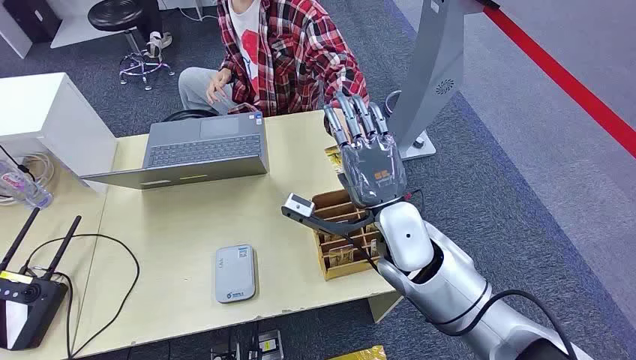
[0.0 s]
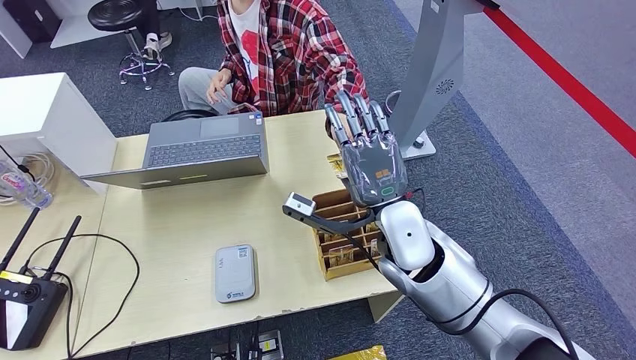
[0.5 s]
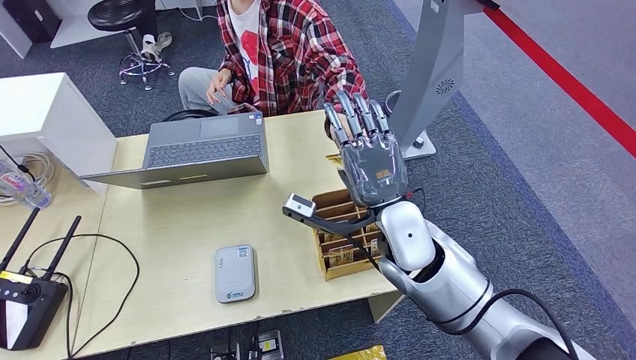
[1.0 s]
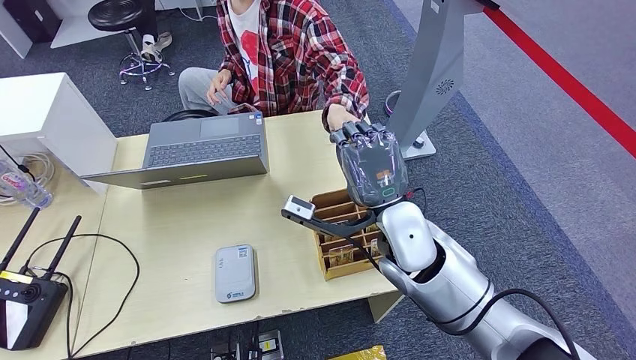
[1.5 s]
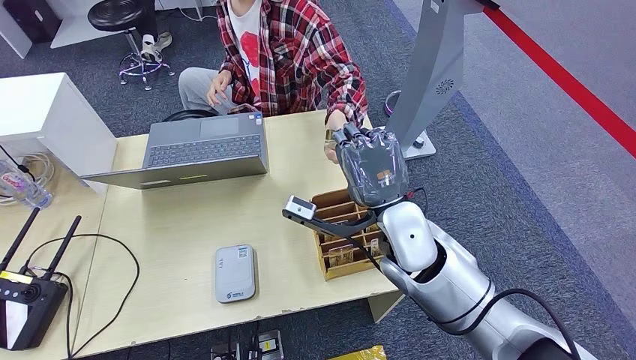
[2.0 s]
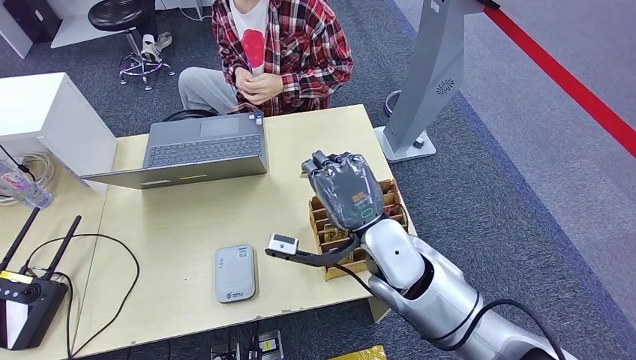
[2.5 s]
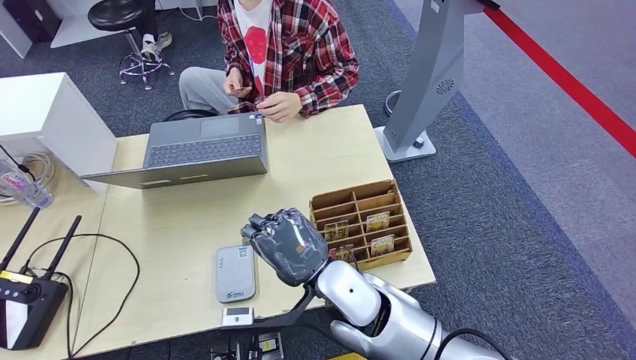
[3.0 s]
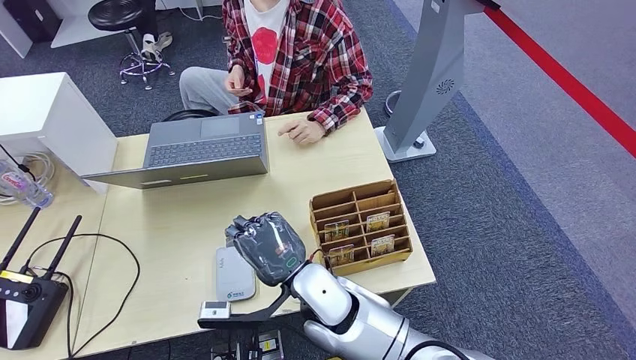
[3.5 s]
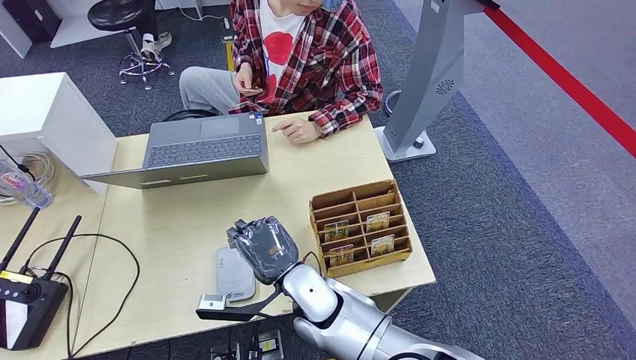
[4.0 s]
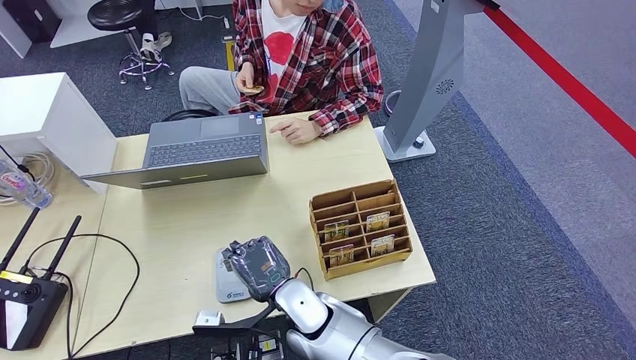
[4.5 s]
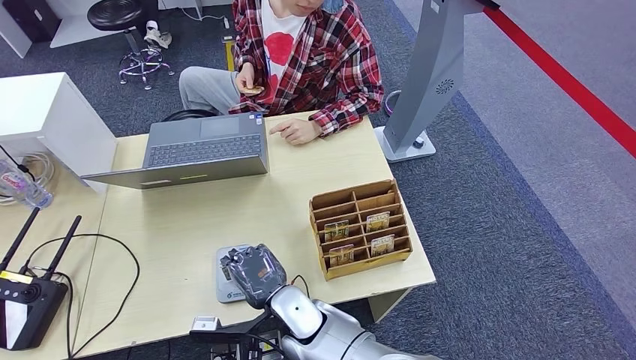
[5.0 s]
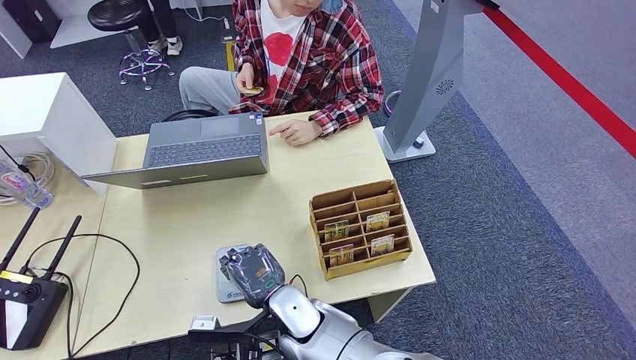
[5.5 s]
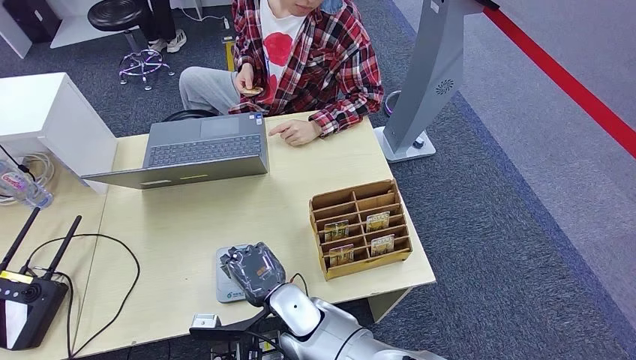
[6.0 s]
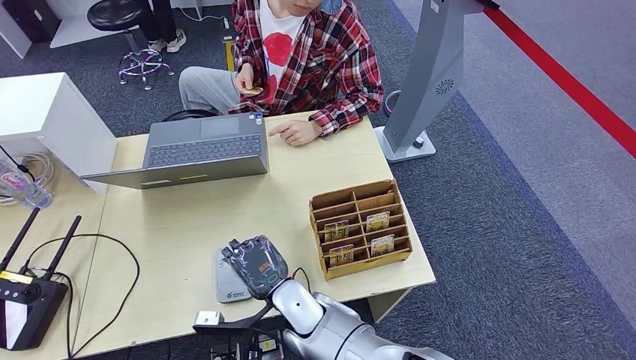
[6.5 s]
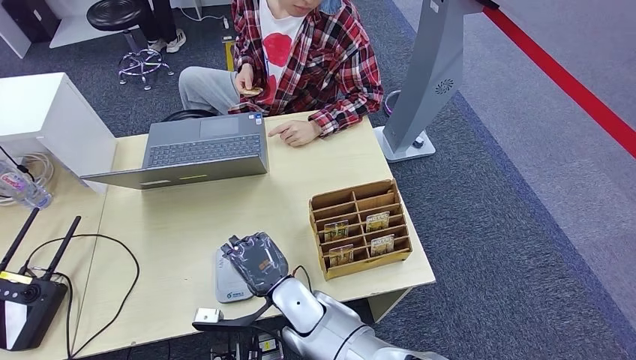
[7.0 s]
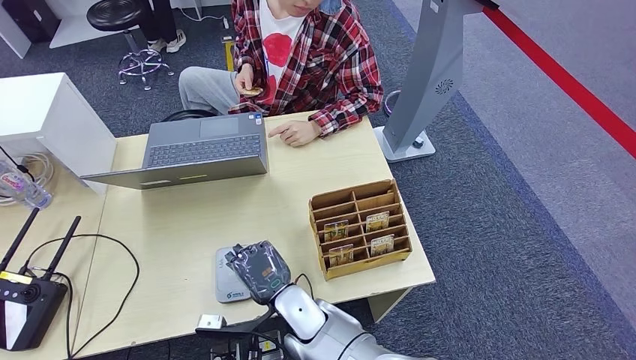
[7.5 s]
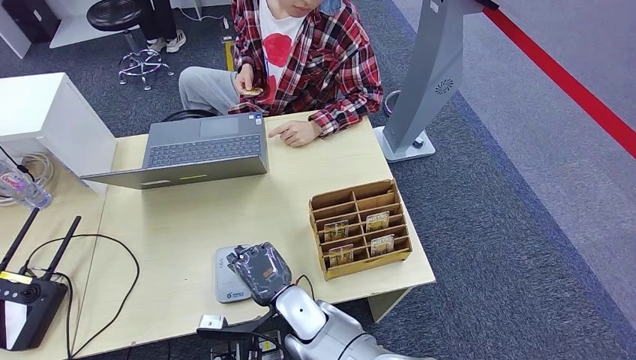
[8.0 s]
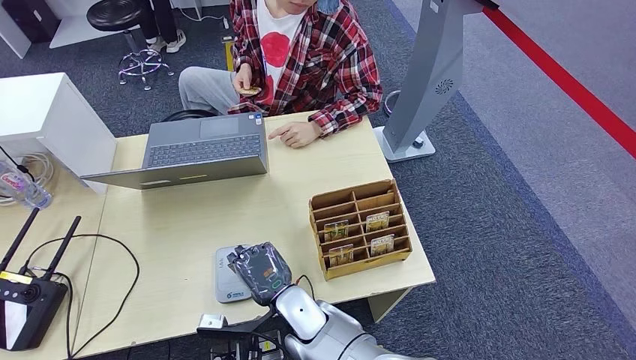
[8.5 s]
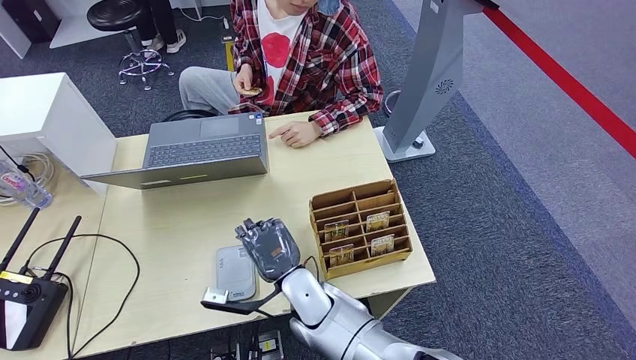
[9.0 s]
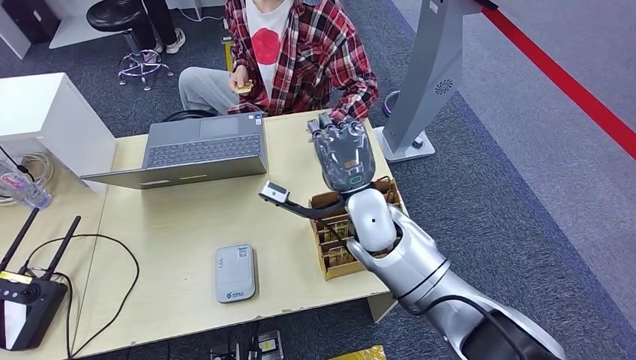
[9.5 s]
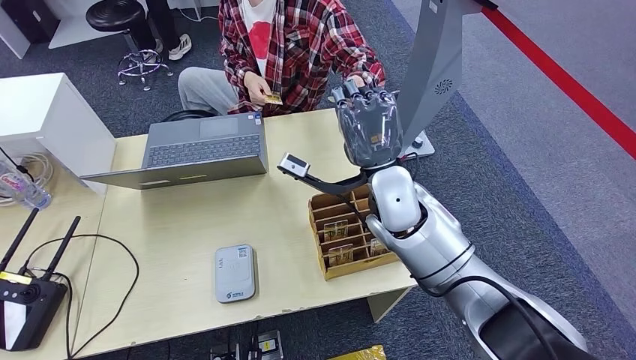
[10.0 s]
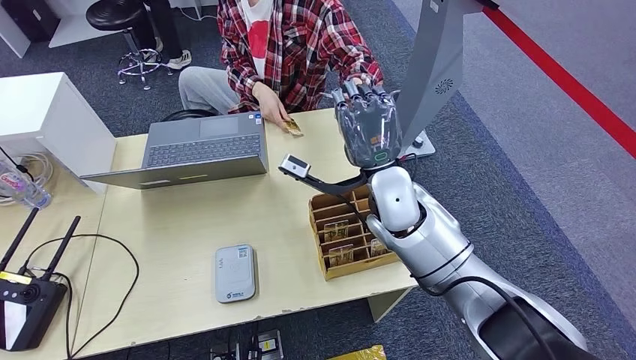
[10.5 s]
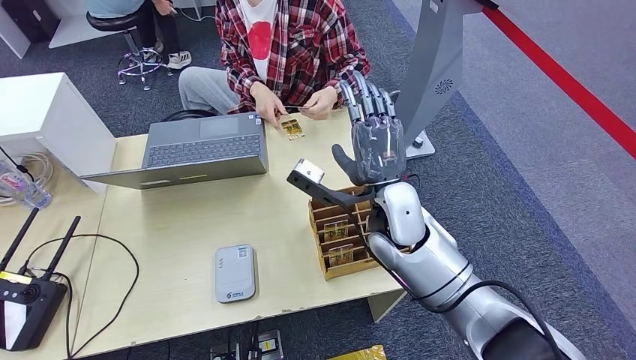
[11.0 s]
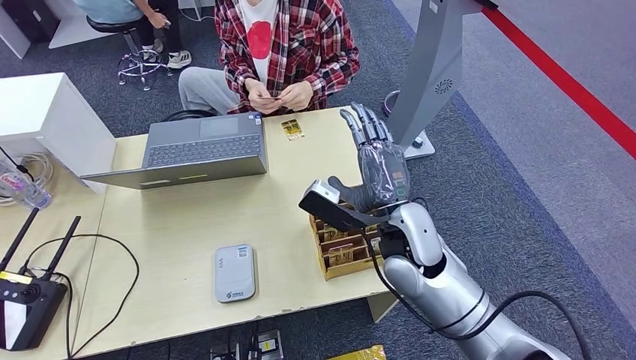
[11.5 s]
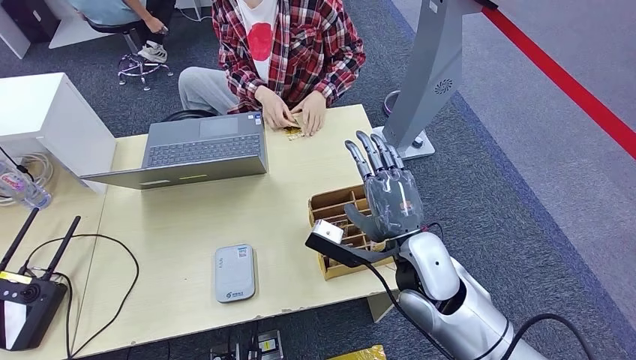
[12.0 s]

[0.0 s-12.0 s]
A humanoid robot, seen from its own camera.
Step, 0.0 to 2.0 s: Take the ID card from the person's hand.
Step, 2.5 to 6.0 s: Place the ID card on the card reader.
Step, 6.5 to 11.0 s: Hand the ID card to the person.
2.0 to 4.0 s: The right hand moves to the left and downward, some 20 cm.
4.0 to 6.0 s: The right hand shifts about 5 cm downward.
6.0 to 8.0 s: The hands make only small movements.
8.0 to 10.0 s: The right hand shifts some 25 cm upward, to the right and forward.
10.0 to 12.0 s: The right hand goes some 10 cm backward and downward.

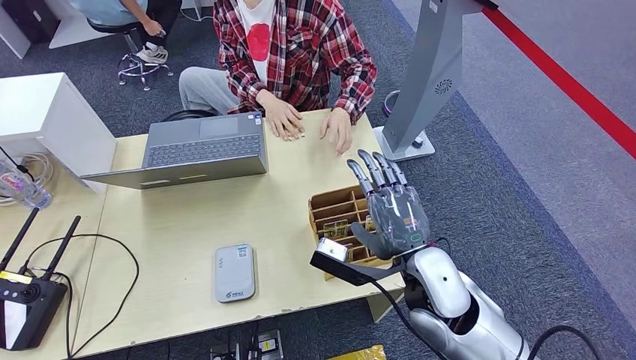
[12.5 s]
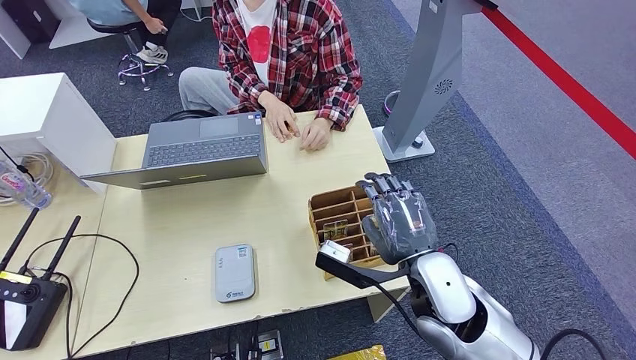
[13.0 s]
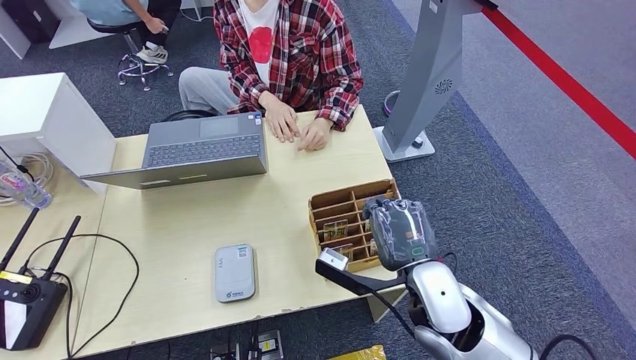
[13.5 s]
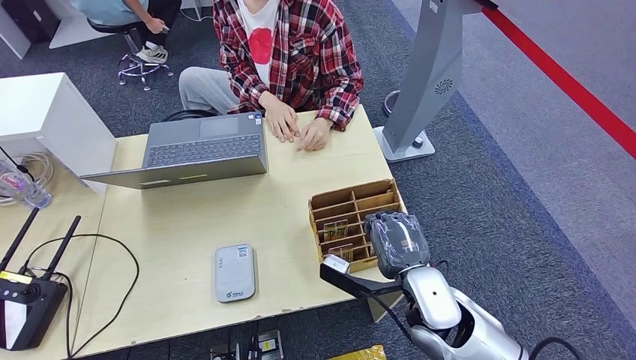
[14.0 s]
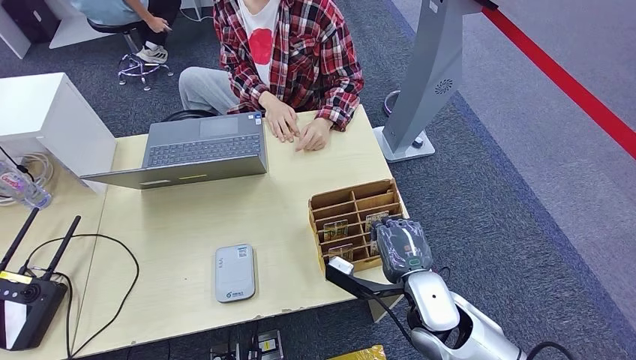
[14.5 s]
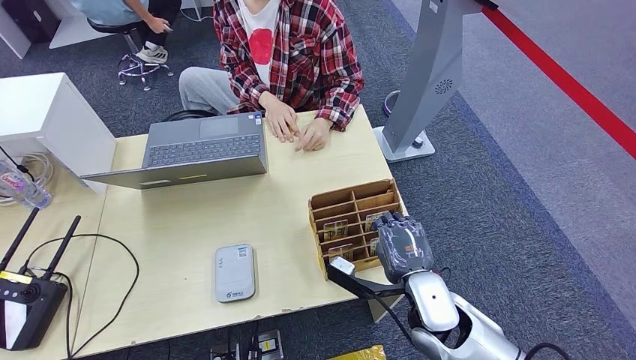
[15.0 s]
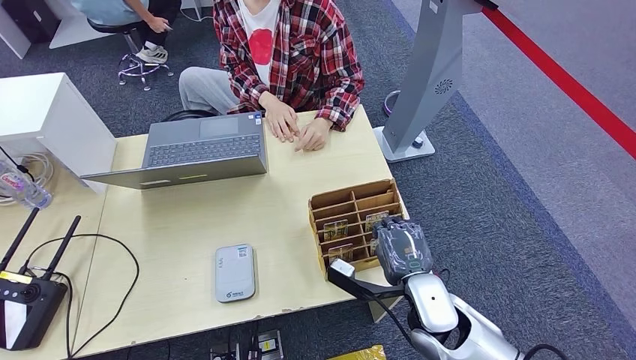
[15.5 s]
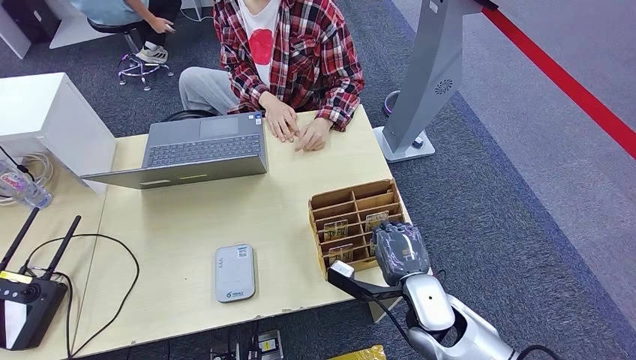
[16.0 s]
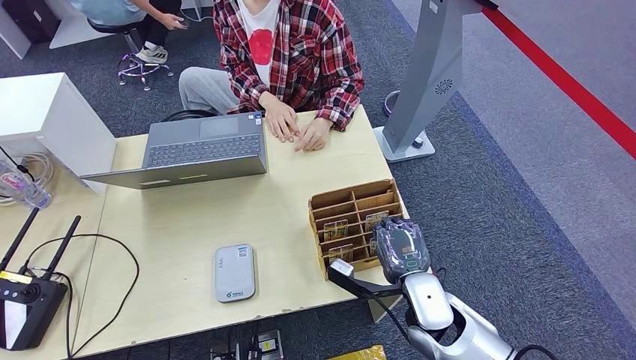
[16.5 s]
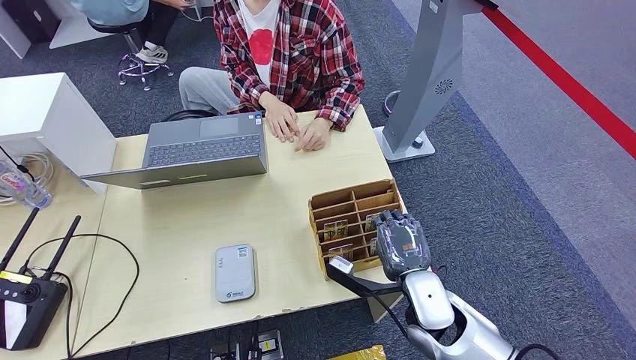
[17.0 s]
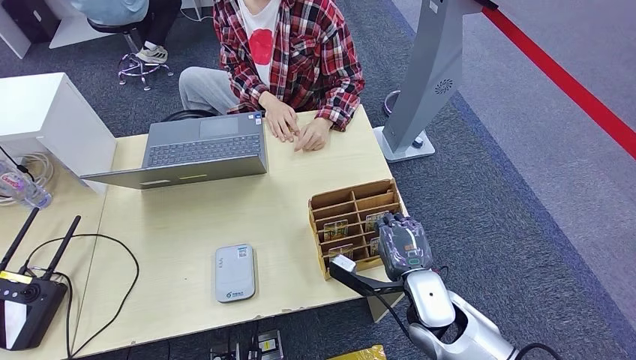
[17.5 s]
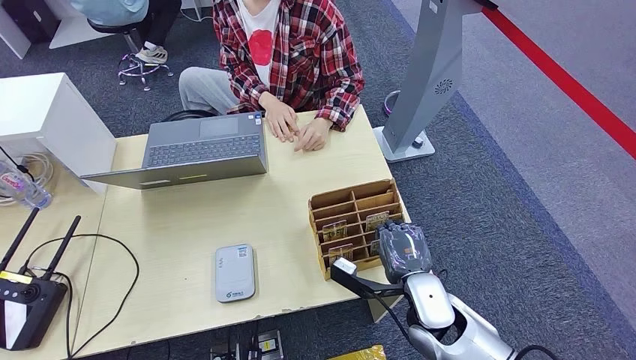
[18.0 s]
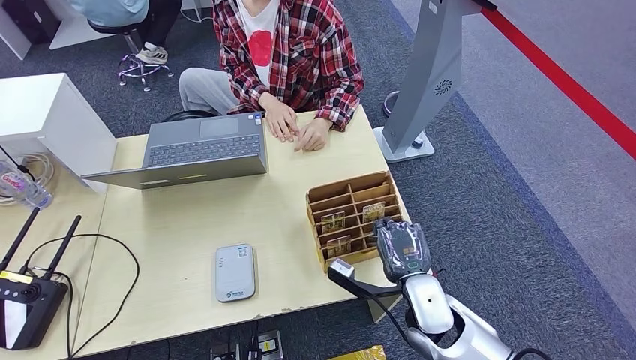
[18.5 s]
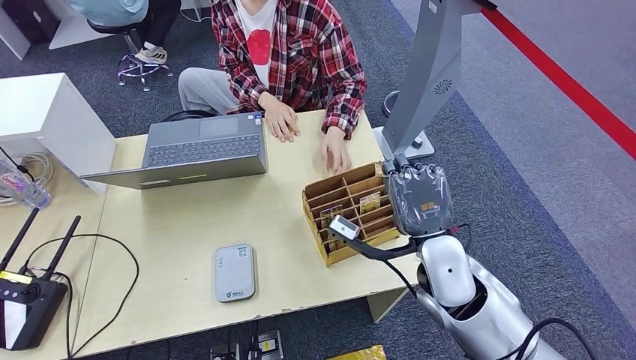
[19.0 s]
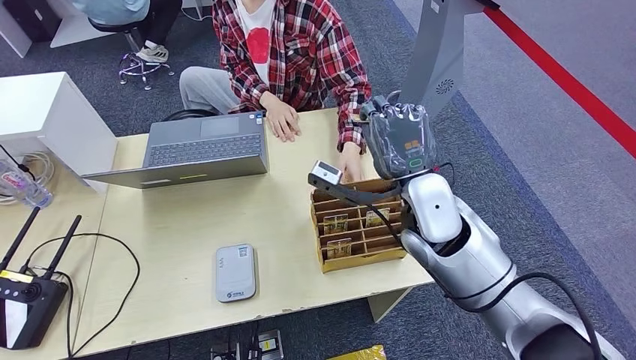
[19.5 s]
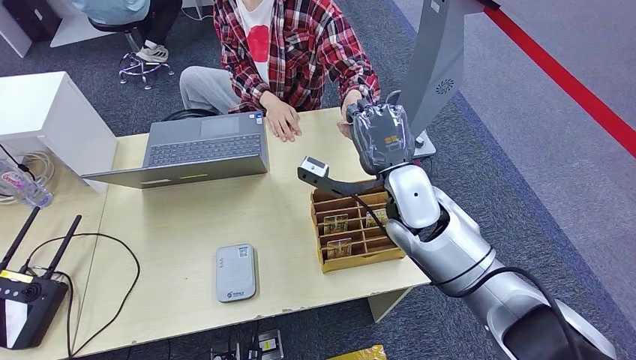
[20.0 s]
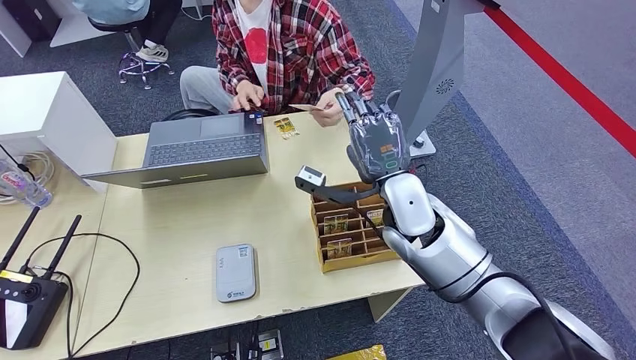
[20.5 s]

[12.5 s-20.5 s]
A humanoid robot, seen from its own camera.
Step, 12.5 to 18.5 s: Pick up the room key from the key card box.
Step, 19.0 to 20.5 s: Hand the room key to the person.
12.5 to 14.5 s: The right hand moves downward, about 5 cm.
14.5 to 16.5 s: There are only small adjustments of the hands.
16.5 to 18.5 s: Both hands stay put.
